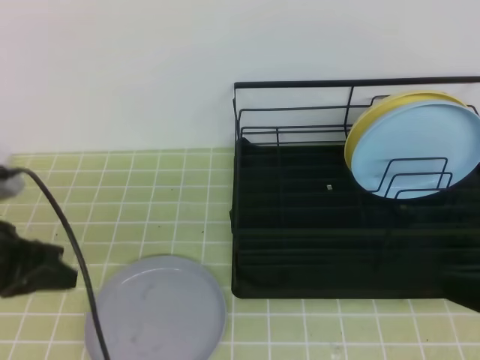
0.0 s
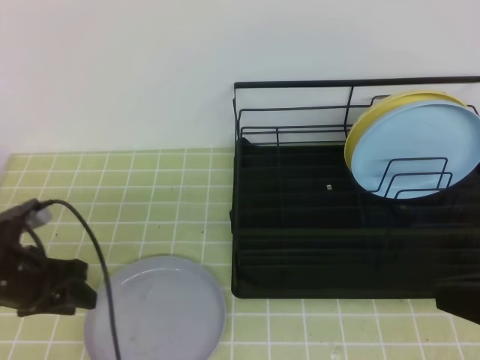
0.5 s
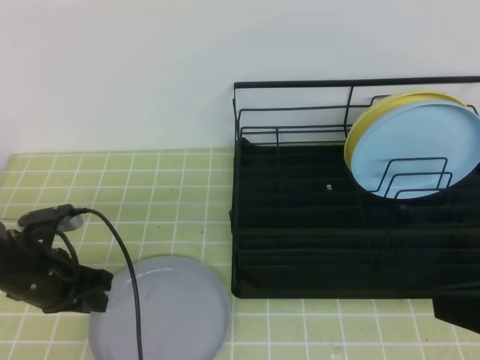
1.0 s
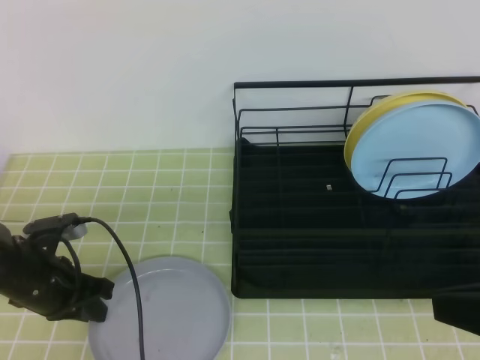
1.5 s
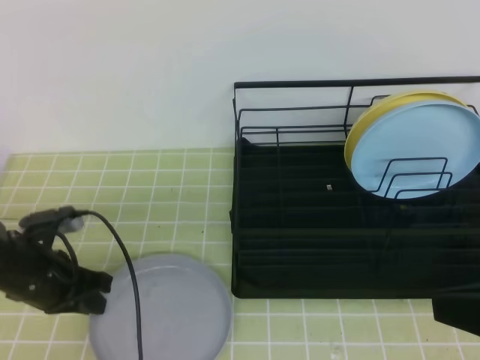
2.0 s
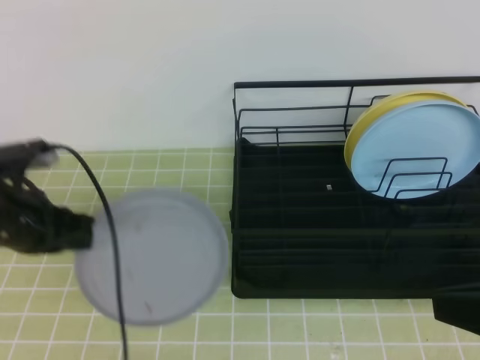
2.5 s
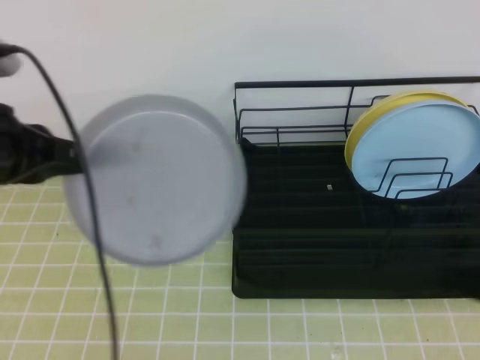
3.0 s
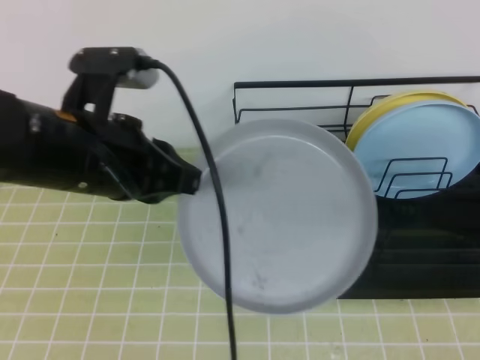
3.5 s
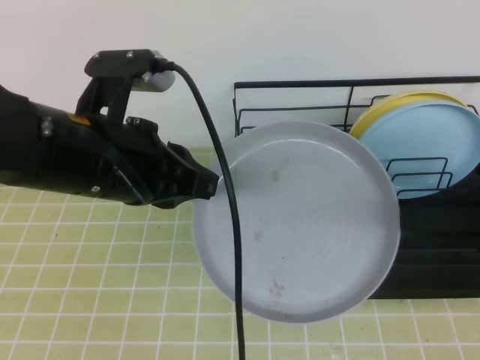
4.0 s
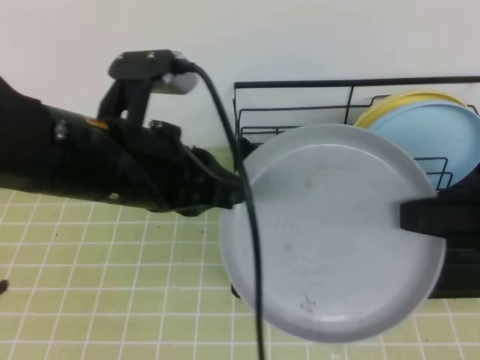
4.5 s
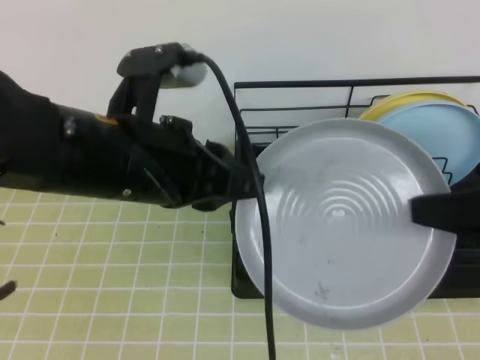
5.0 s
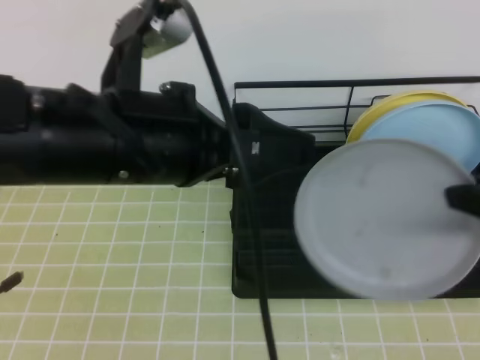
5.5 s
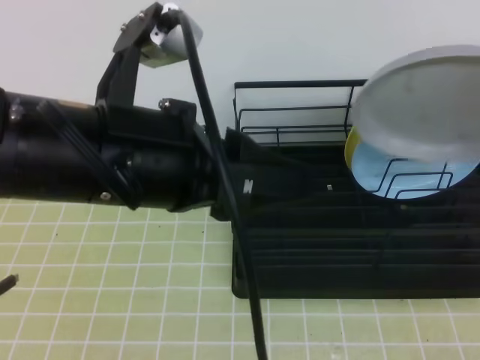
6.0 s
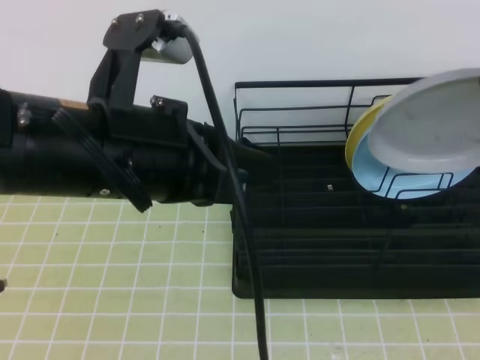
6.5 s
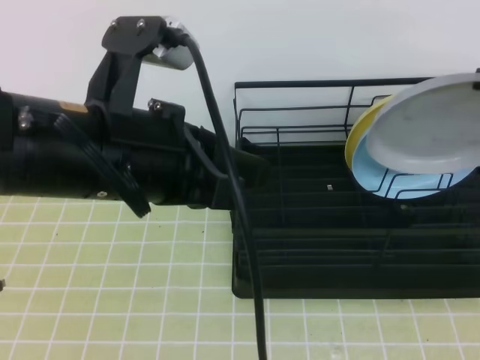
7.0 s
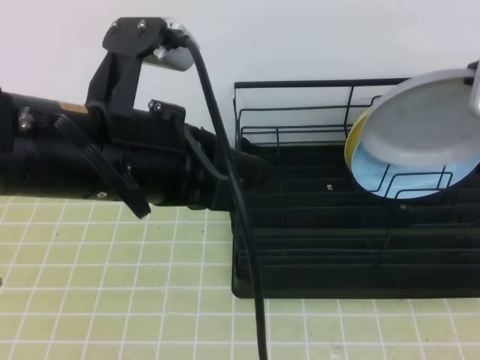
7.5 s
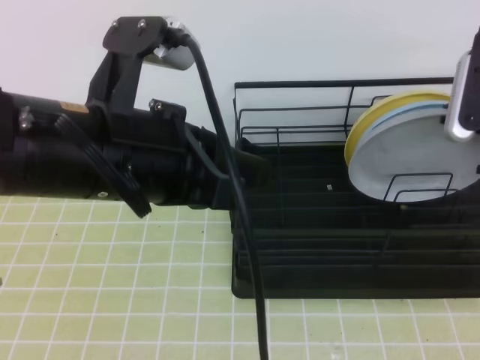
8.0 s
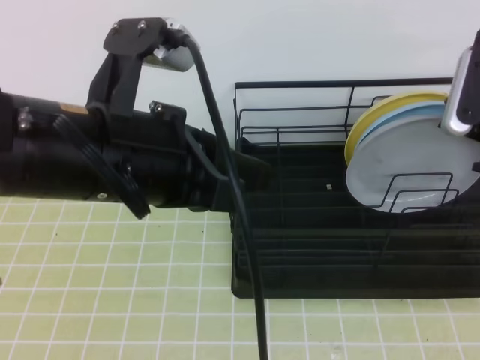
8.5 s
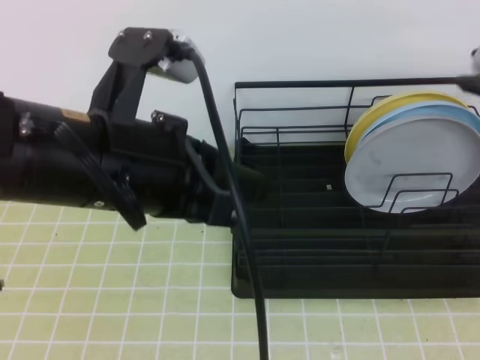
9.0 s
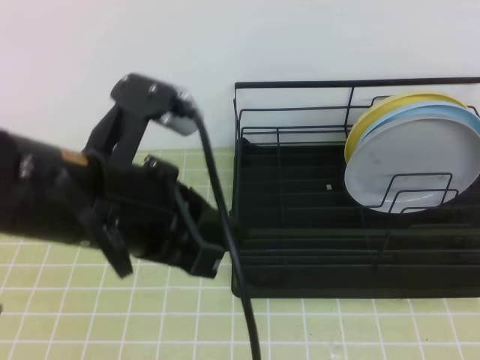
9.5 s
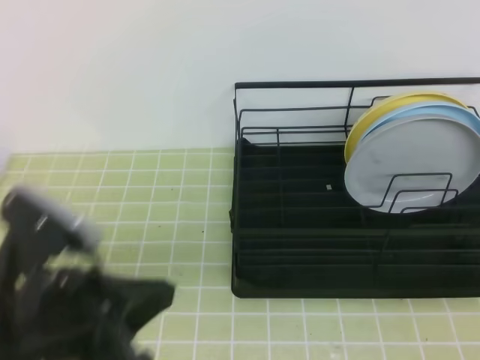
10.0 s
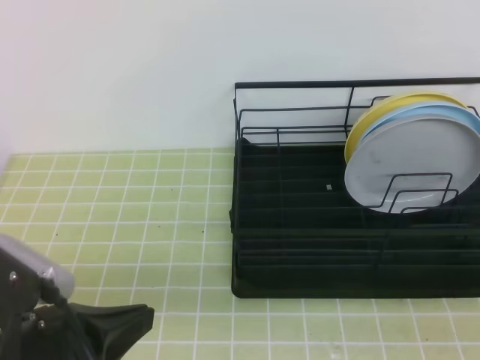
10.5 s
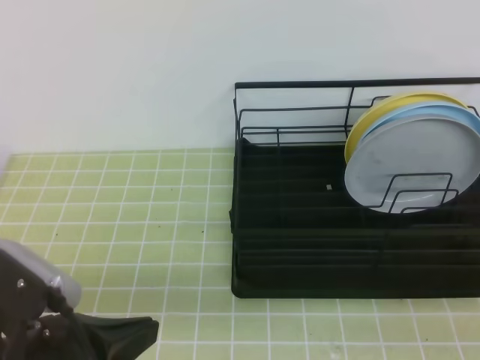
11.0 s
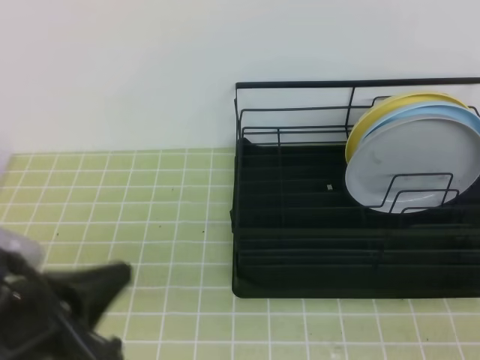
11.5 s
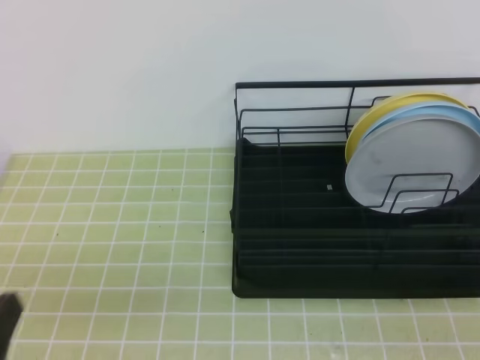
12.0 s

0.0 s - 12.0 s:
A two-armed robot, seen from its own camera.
0.0 s - 2.0 s: The left gripper goes about 10 cm downward and forward, and opens, then closes once more.
2.0 s - 4.0 s: The right gripper is displaced forward by approximately 5 cm, and opens, while the left gripper moves upward and to the right, some 25 cm.
4.0 s - 6.0 s: The right gripper goes roughly 5 cm upward, and closes up. The left gripper ends up some 5 cm from where it was, and opens up.
6.0 s - 8.0 s: The right gripper shifts roughly 10 cm forward and downward, while the left gripper closes up.
8.0 s - 10.0 s: The right gripper moves backward, approximately 30 cm, and opens, then closes once more; the left gripper goes some 10 cm downward, backward and to the left.
10.0 s - 12.0 s: The right gripper heads downward, covering roughly 10 cm; the left gripper heads to the left, downward and backward, covering roughly 10 cm.
